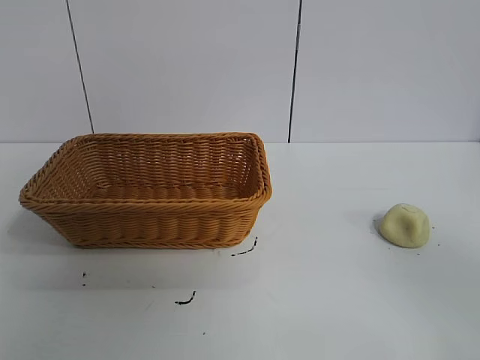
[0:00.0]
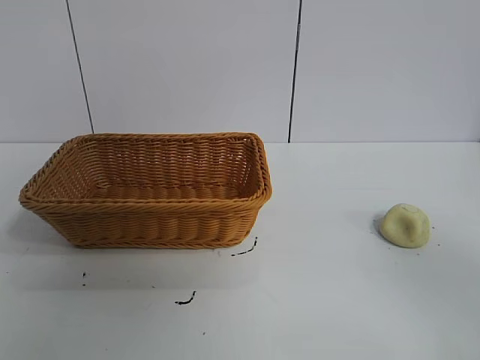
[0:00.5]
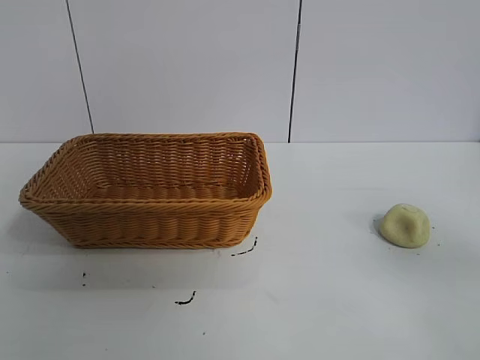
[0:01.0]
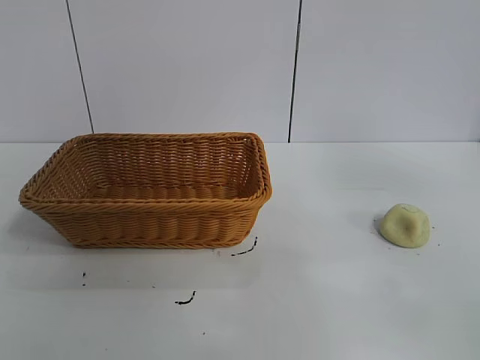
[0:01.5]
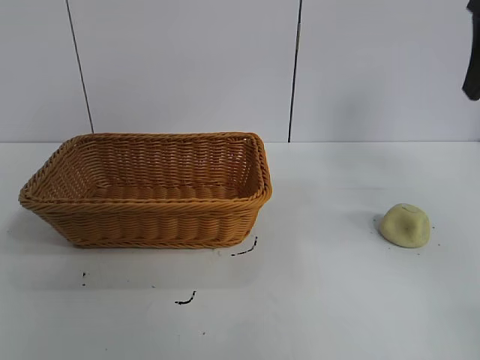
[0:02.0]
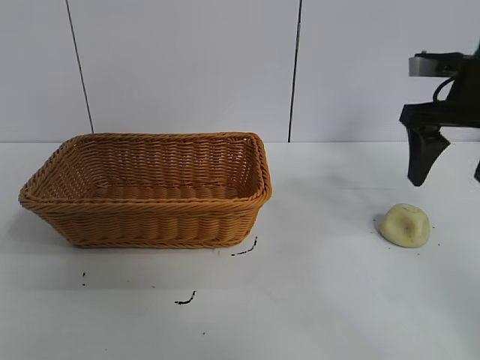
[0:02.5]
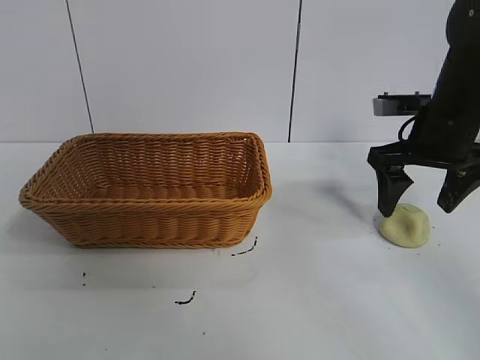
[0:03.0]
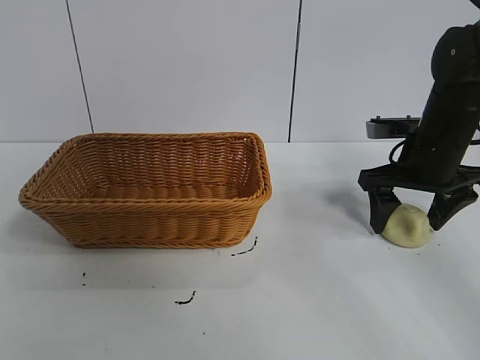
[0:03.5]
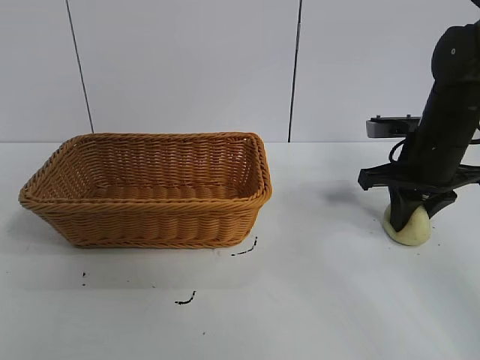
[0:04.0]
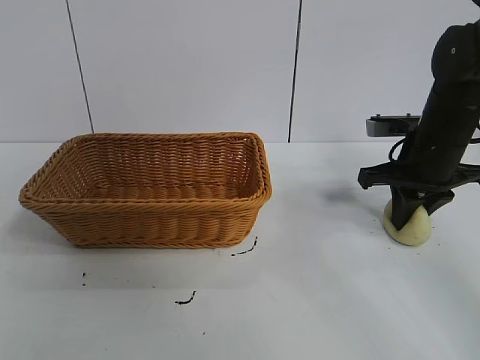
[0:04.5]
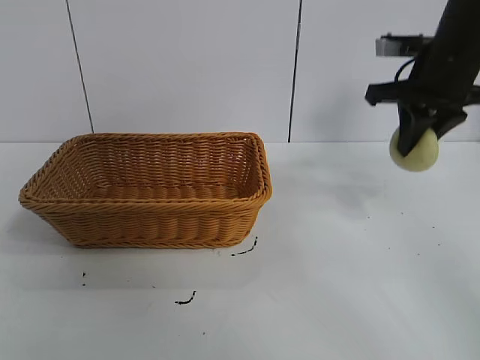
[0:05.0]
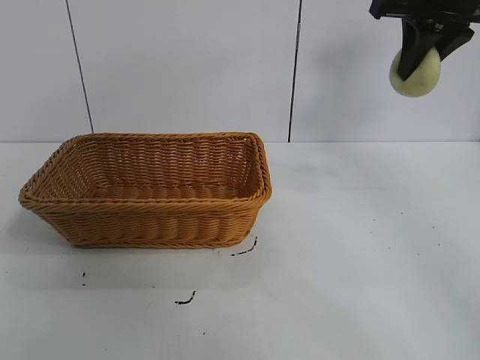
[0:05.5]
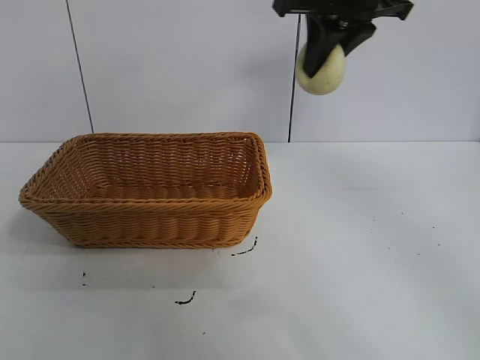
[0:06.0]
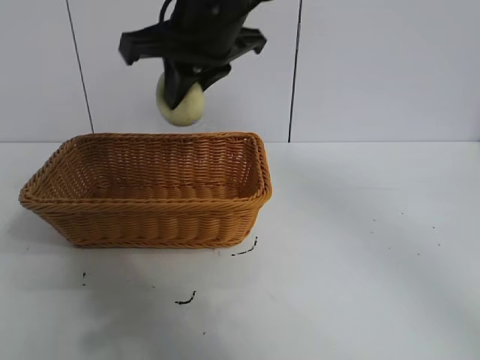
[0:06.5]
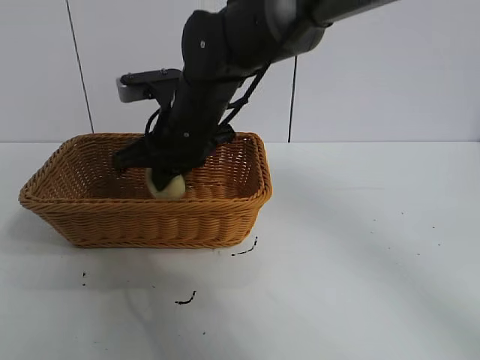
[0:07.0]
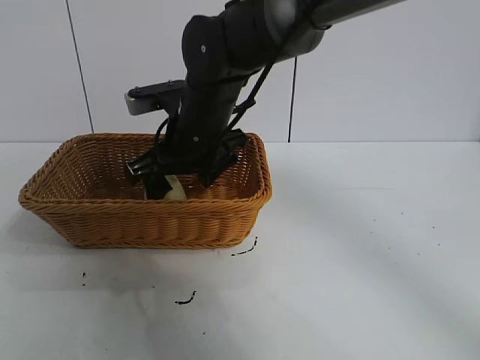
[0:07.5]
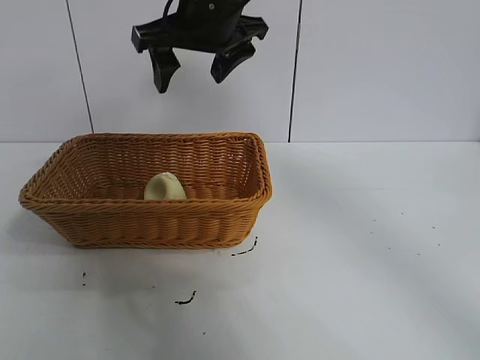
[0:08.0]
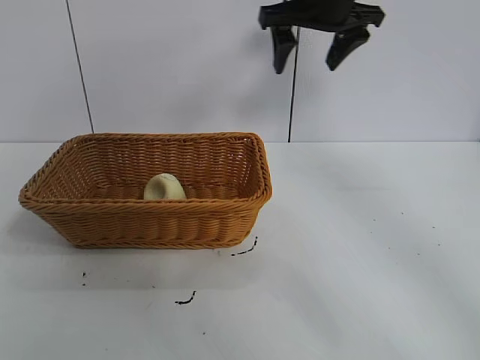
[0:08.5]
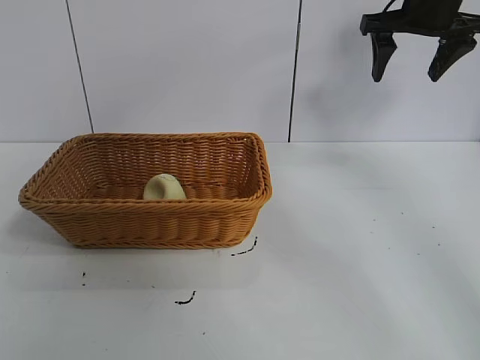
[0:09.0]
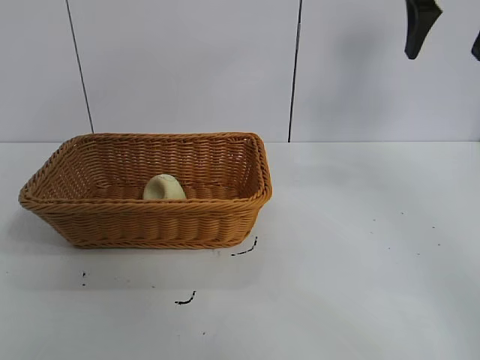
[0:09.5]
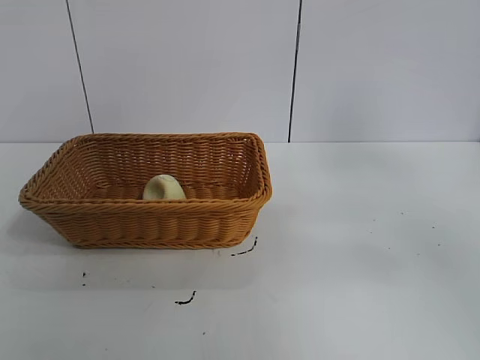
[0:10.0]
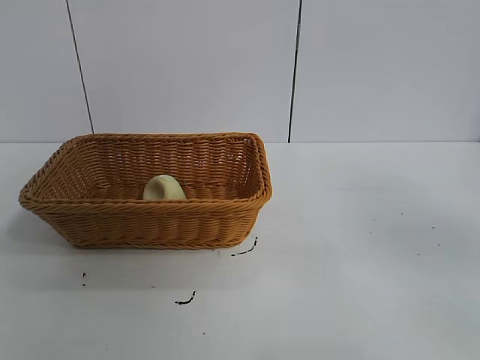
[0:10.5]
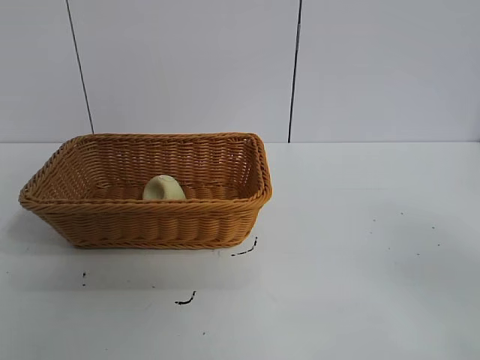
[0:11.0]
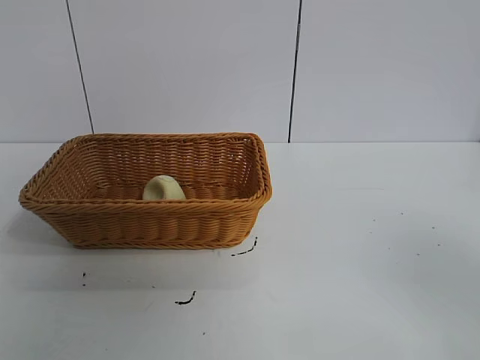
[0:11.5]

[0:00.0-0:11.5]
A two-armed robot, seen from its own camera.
Task of the whole recording: pick up the egg yolk pastry and put it into the basket.
Step, 0:01.0 to 0:04.0: Grasp egg yolk pastry with right gripper.
Step, 0:04.5 to 0:07.0: Place the egg yolk pastry in the basket with right gripper.

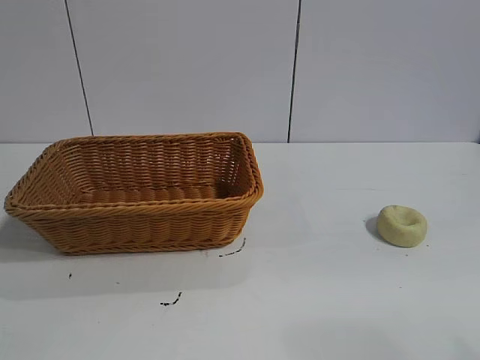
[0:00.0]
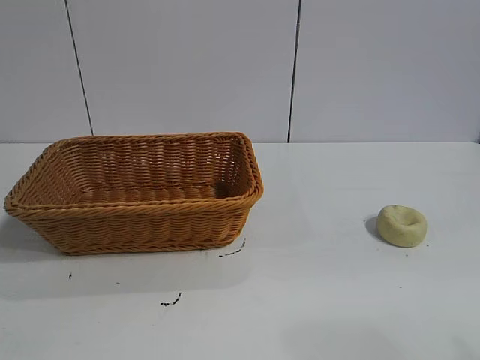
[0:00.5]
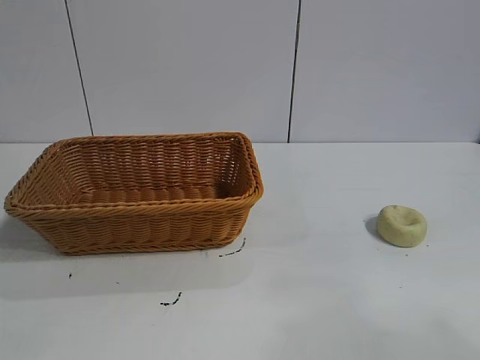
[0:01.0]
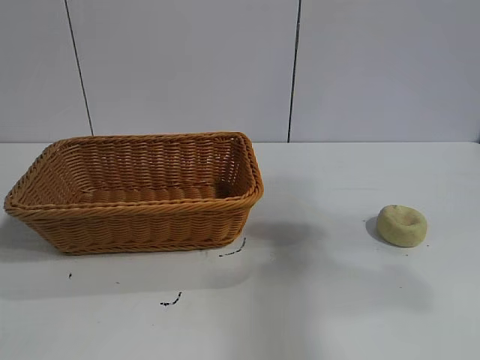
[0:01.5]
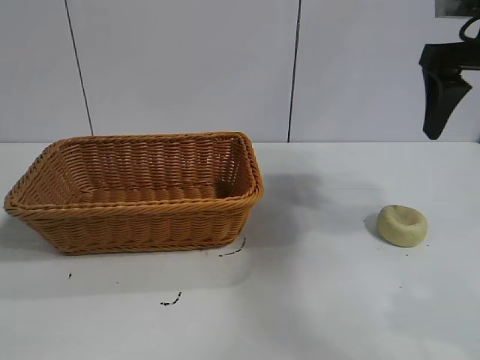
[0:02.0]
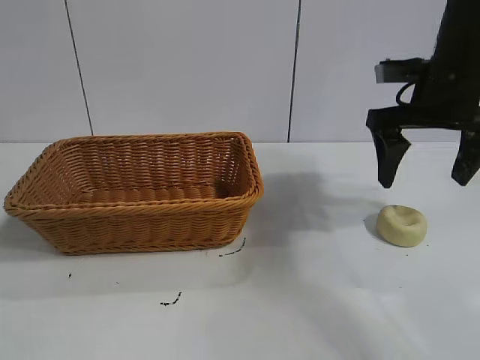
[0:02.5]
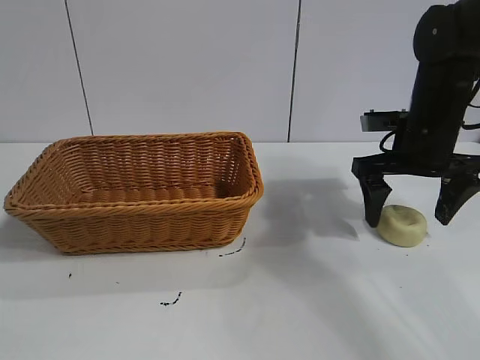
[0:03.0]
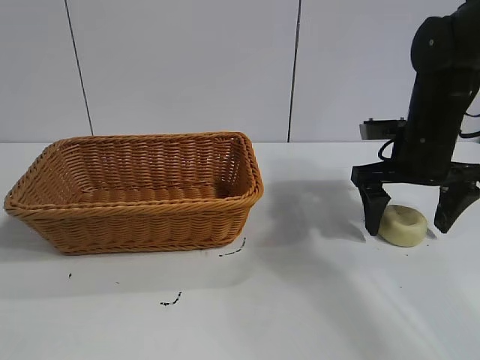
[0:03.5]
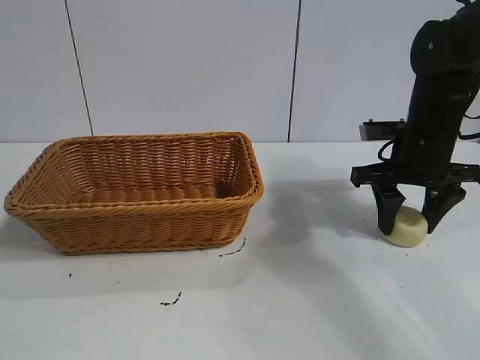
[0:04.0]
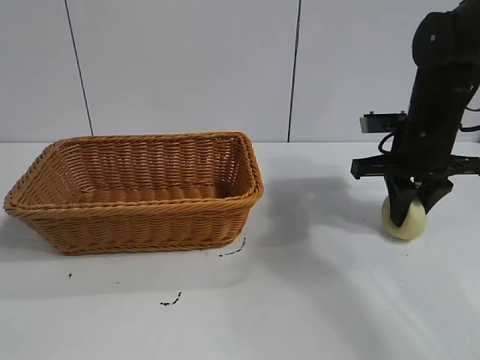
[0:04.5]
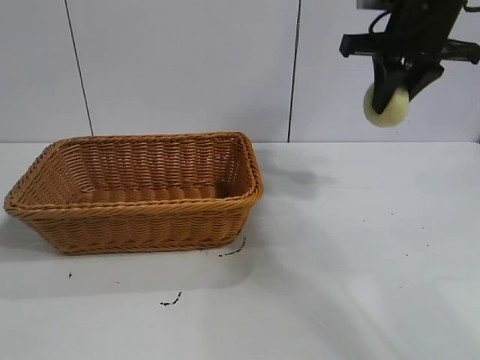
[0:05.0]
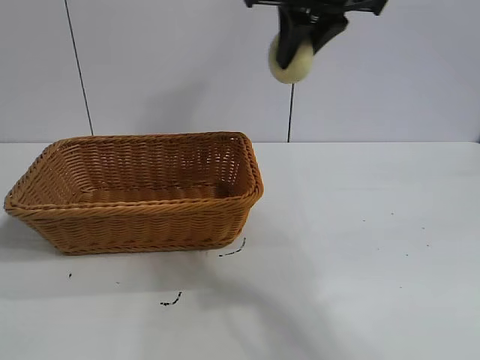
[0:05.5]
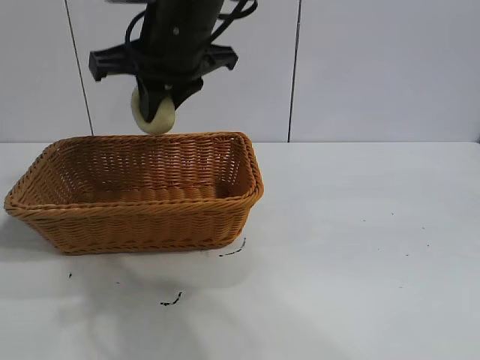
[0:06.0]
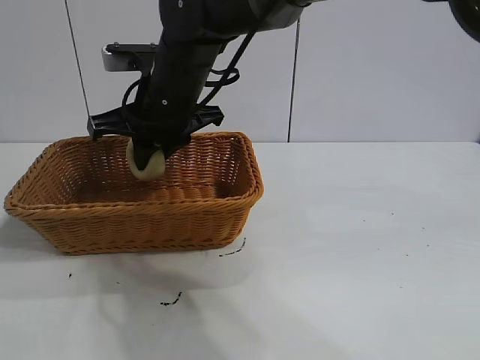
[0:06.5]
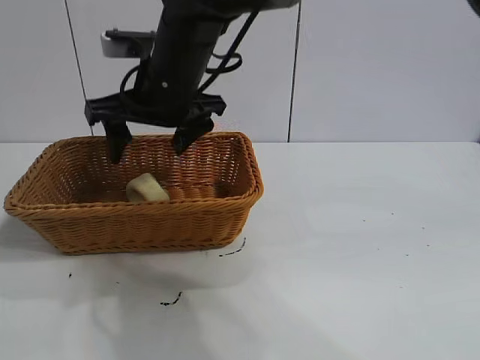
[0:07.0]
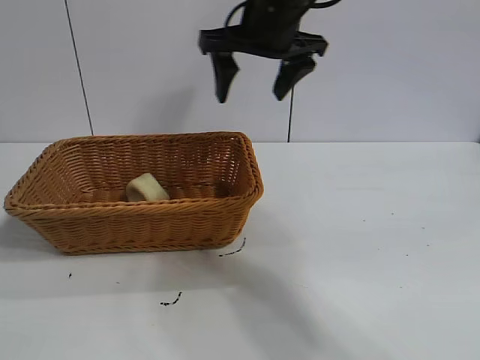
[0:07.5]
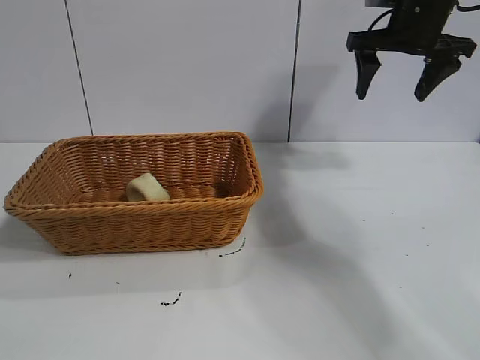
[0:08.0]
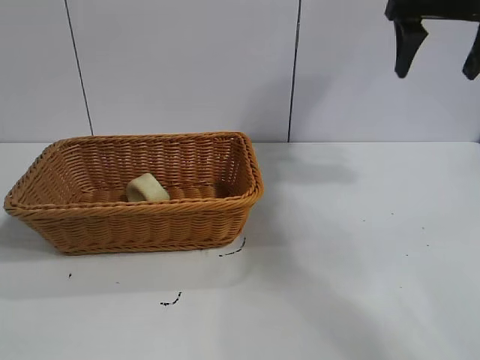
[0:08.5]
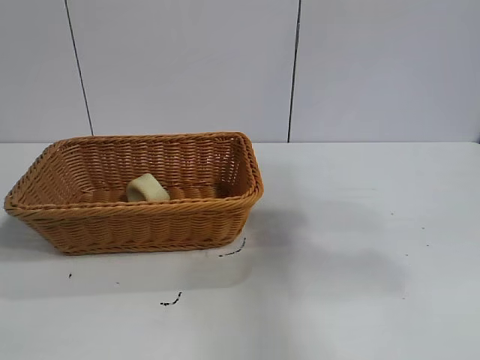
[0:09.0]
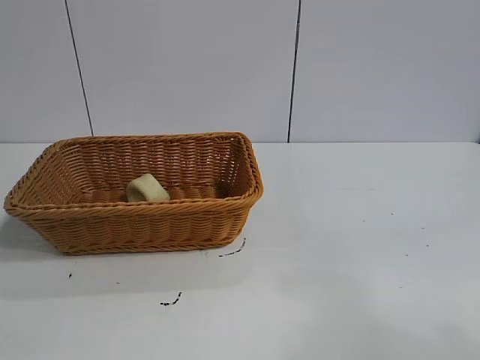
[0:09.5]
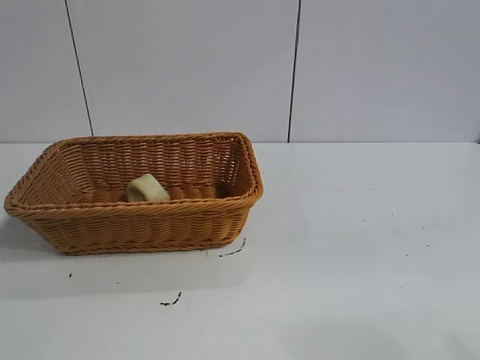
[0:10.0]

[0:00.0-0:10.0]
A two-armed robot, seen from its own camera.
Task of the whole recording: pick up the egg yolk pastry and put it into the basket.
Step, 0:01.0 to 0:04.0: Grasp egg yolk pastry with right gripper.
Step, 0:04.5 to 0:06.5: Place the egg yolk pastry in the basket with right gripper.
